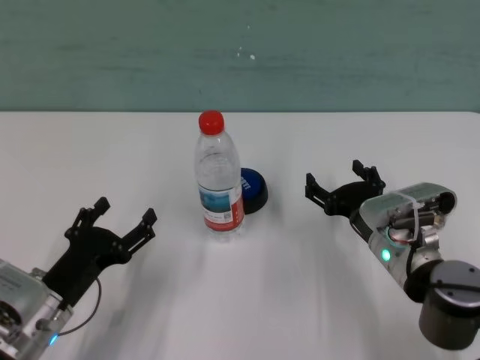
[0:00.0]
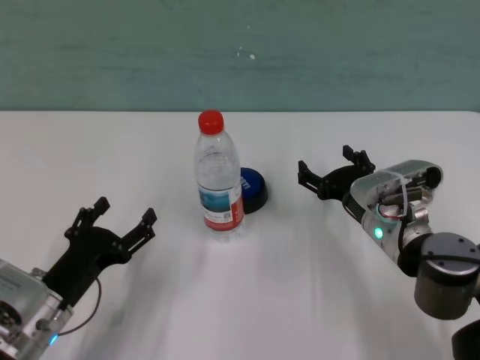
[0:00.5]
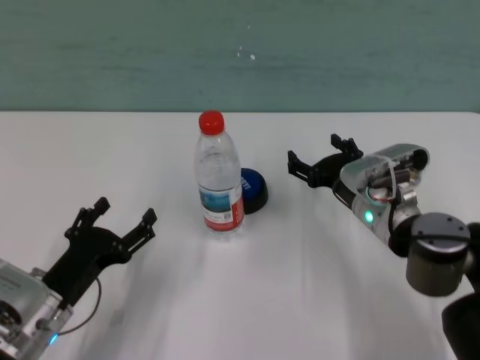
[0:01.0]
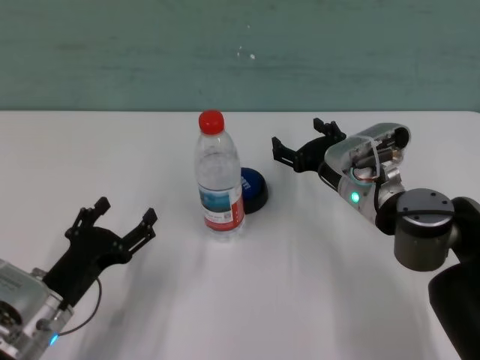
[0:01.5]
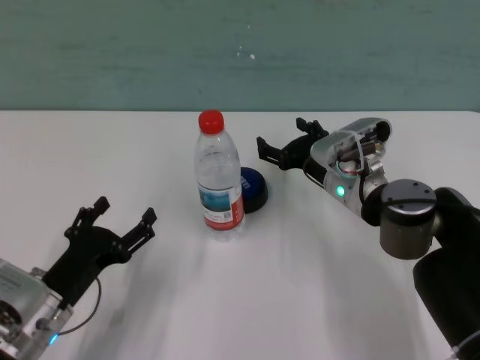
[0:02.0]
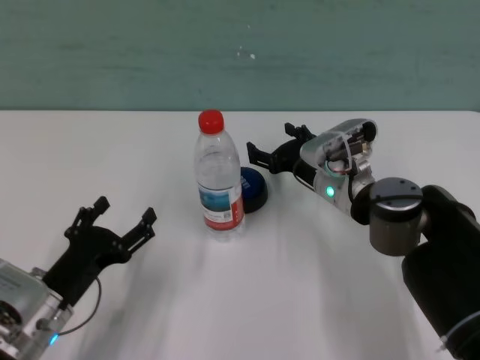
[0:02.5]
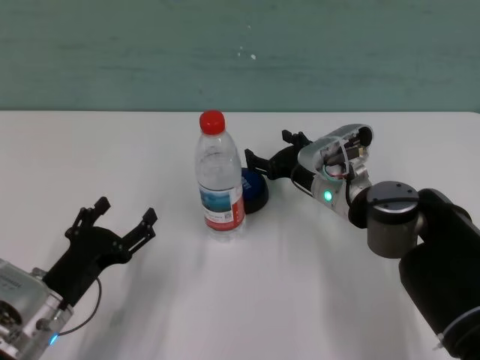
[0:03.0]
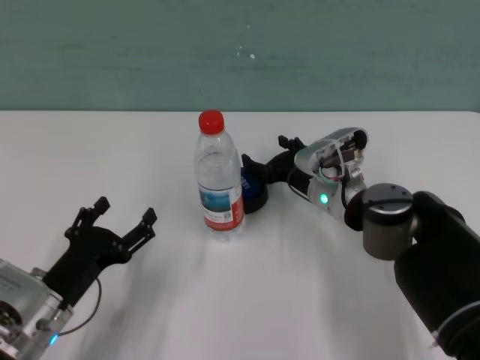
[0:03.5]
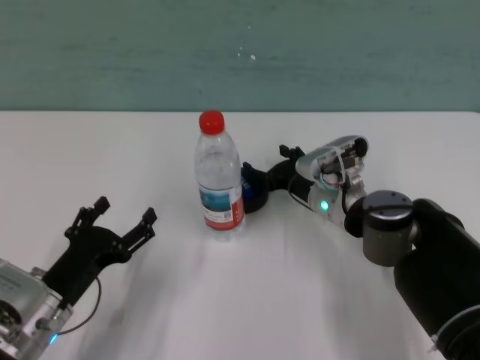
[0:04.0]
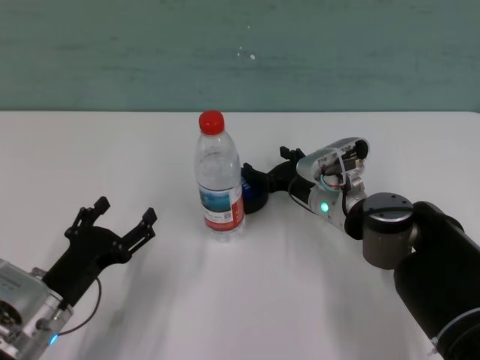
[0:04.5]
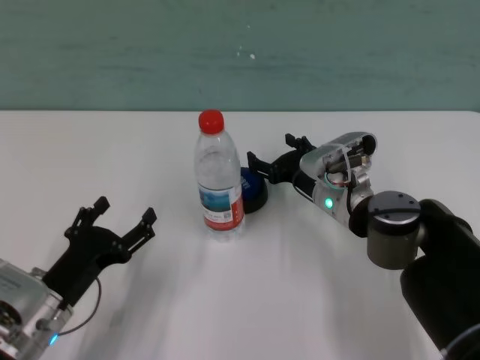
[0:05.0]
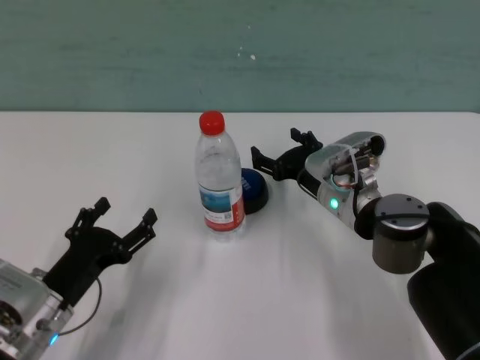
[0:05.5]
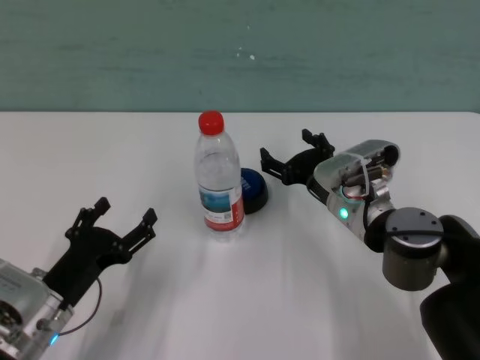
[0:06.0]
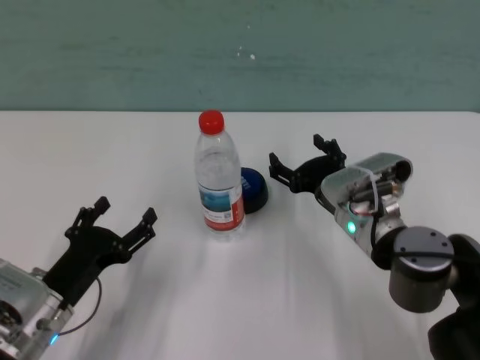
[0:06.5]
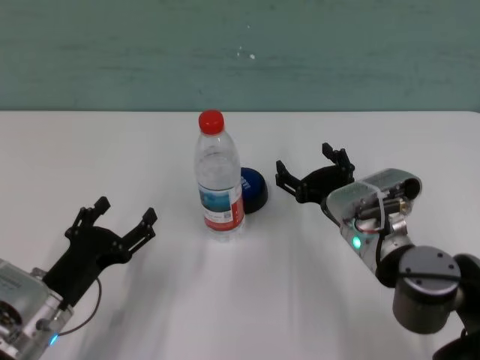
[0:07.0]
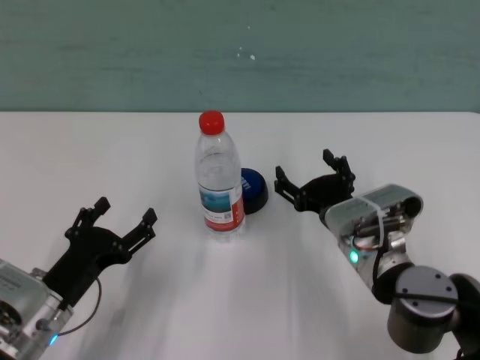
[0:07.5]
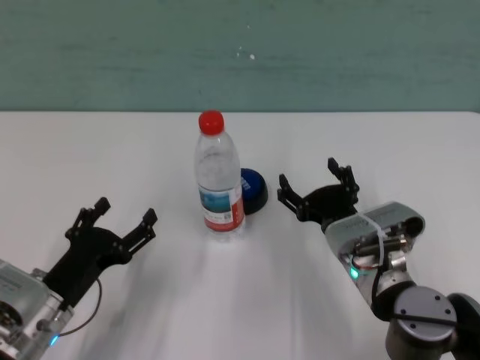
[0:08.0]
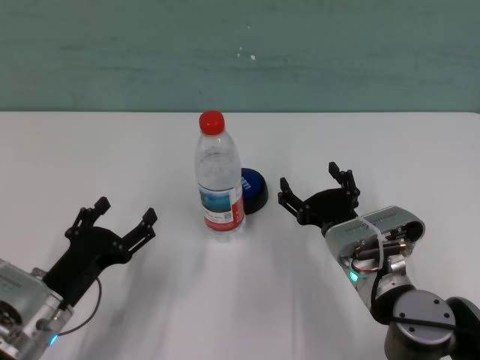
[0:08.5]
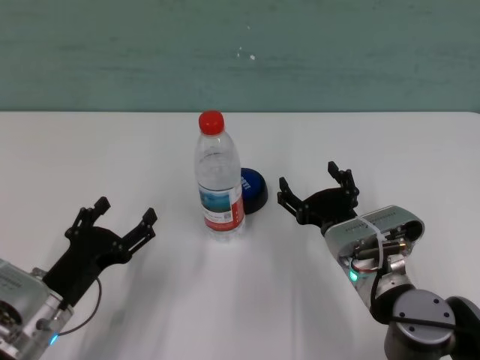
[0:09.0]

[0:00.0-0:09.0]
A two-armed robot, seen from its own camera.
Task of the whole recording: after avoiding the water bottle on the table, press the button.
Step, 0:00.0 to 0:05.0: Press the button blocked by the bottle with right gripper.
